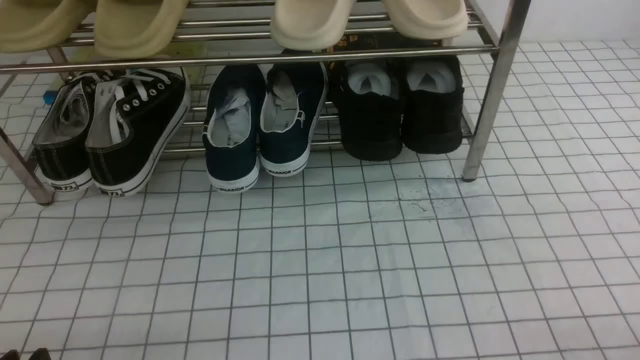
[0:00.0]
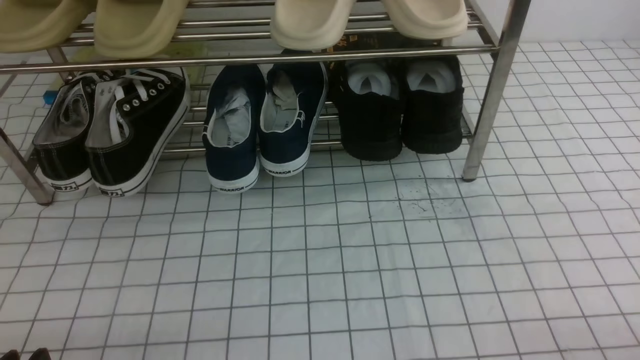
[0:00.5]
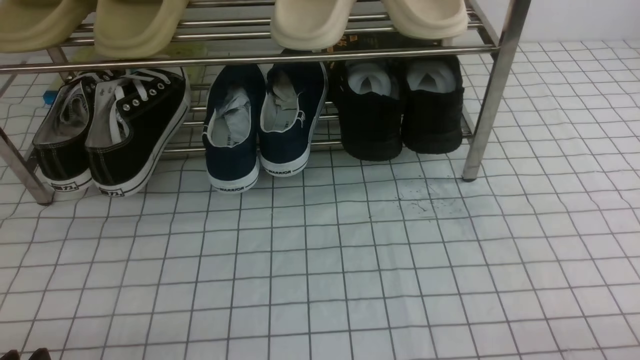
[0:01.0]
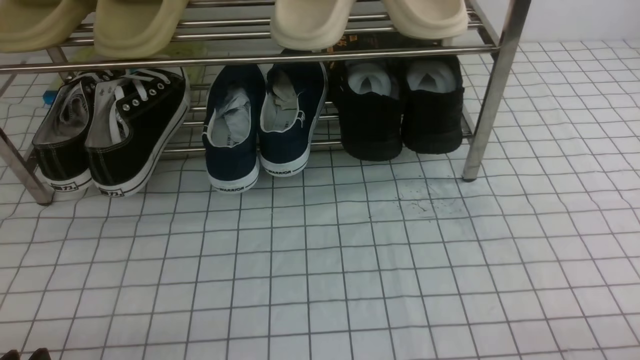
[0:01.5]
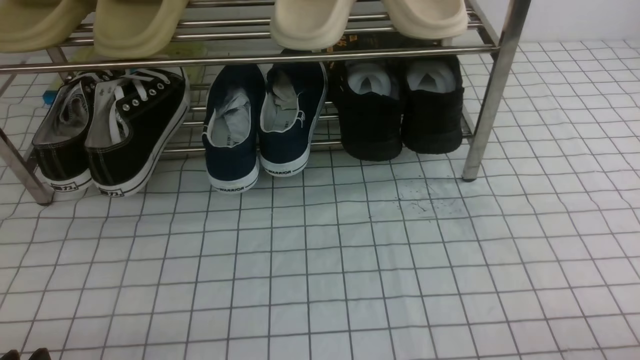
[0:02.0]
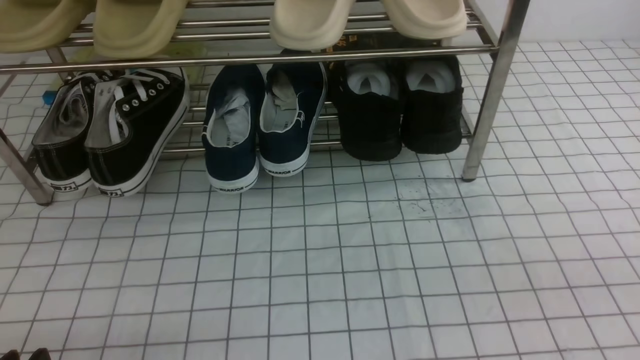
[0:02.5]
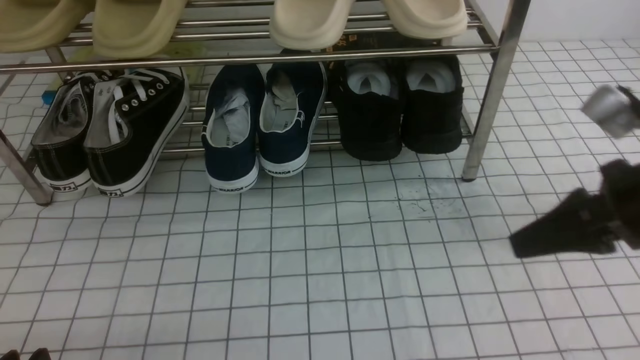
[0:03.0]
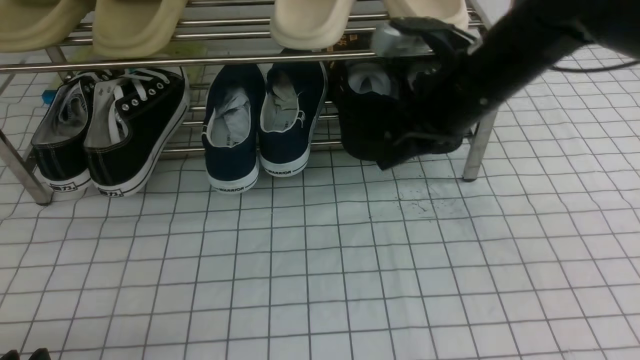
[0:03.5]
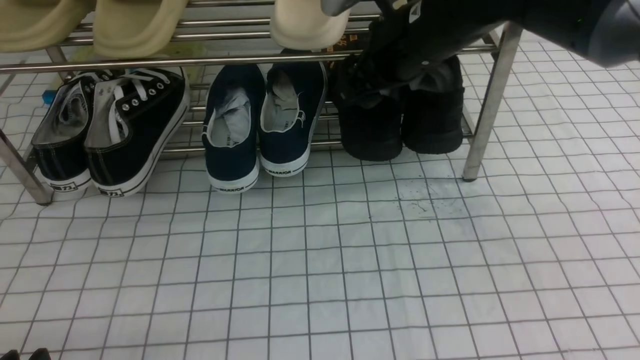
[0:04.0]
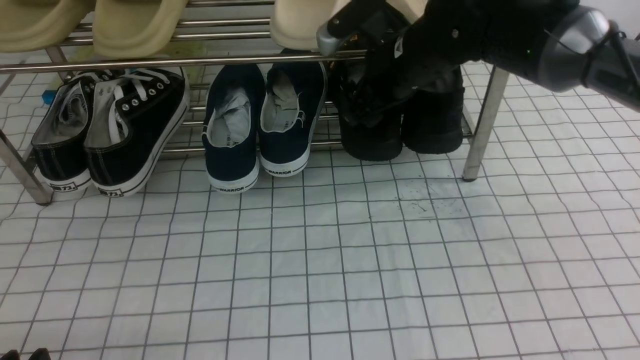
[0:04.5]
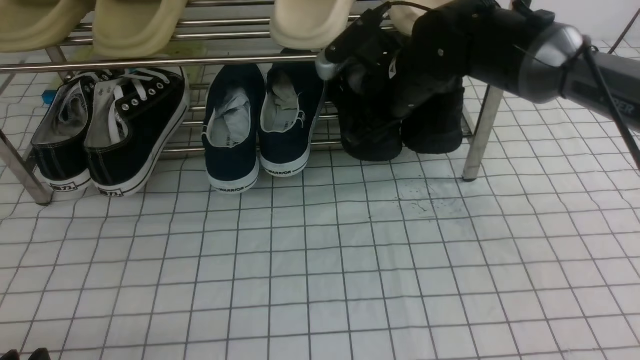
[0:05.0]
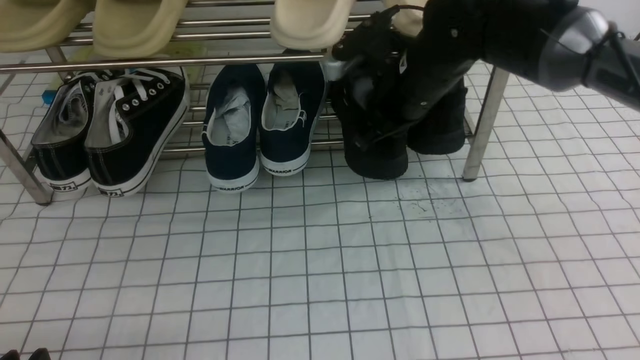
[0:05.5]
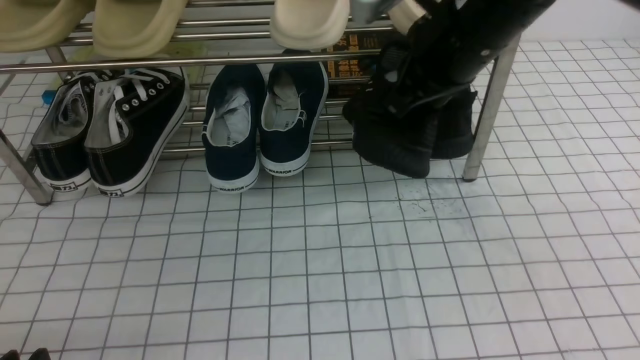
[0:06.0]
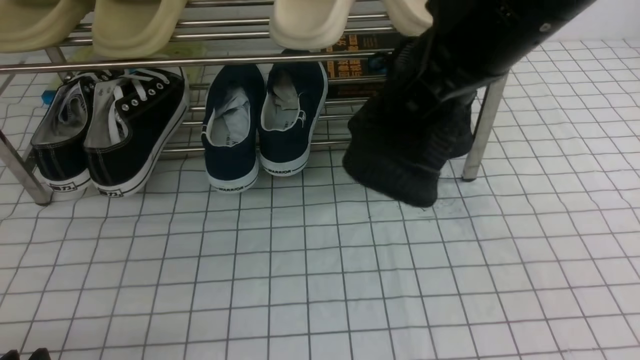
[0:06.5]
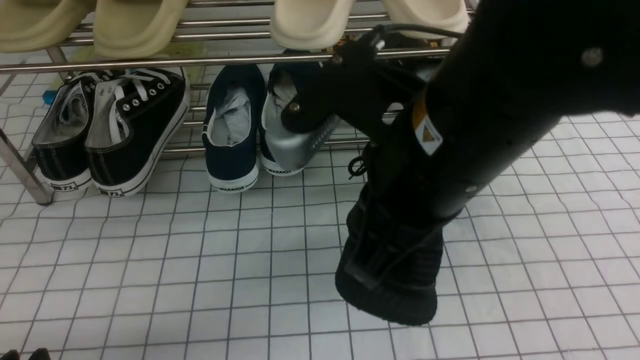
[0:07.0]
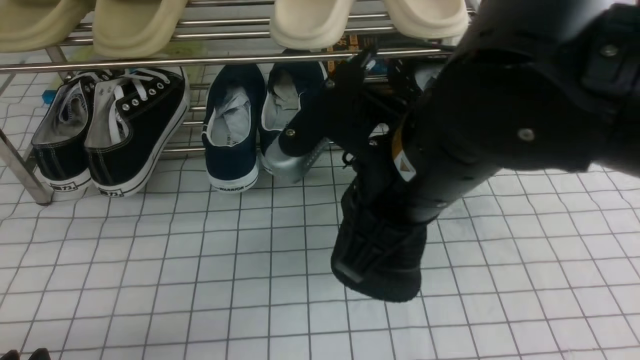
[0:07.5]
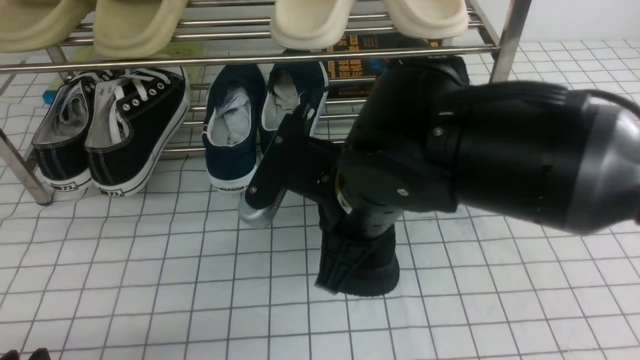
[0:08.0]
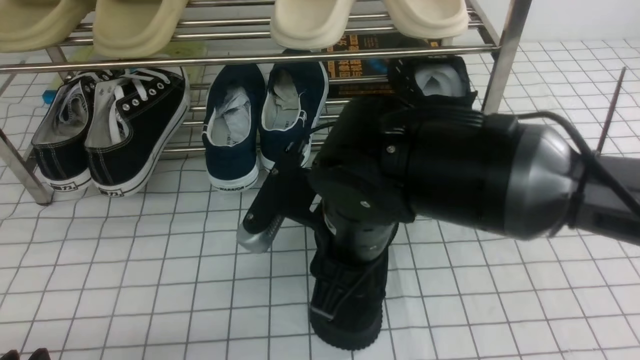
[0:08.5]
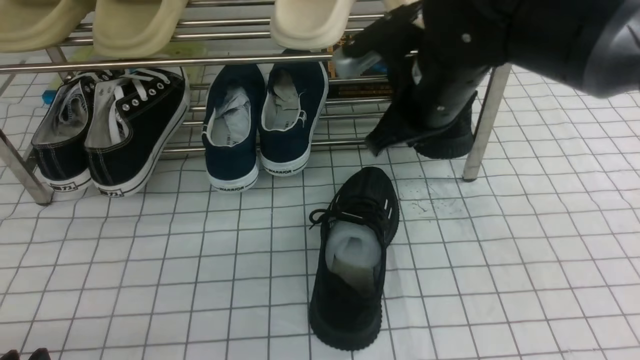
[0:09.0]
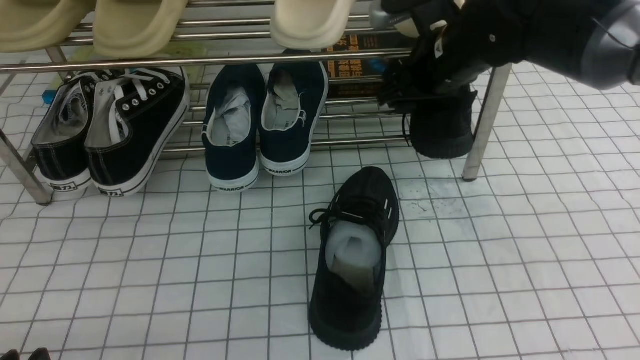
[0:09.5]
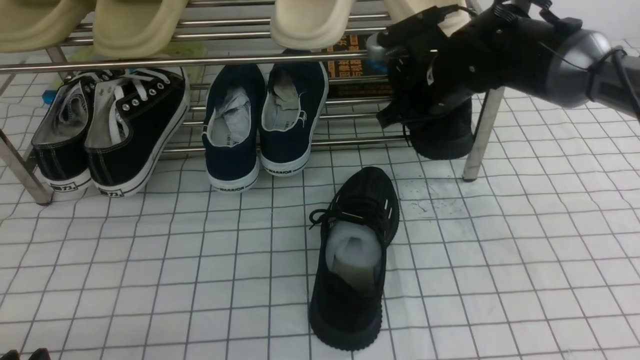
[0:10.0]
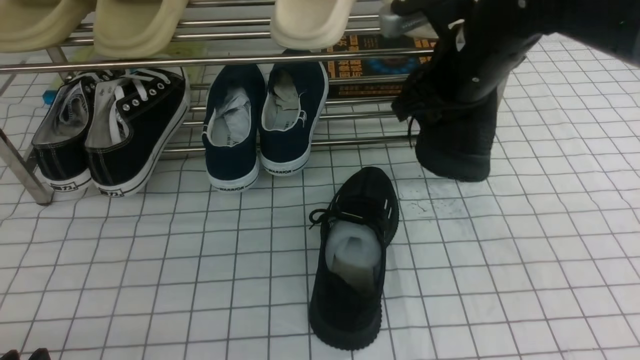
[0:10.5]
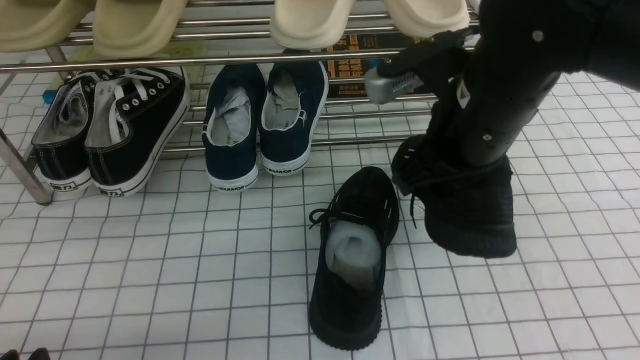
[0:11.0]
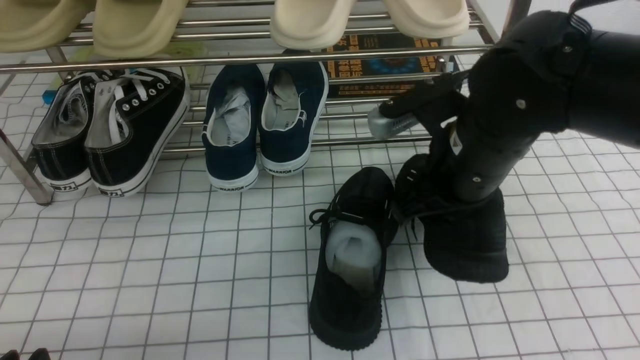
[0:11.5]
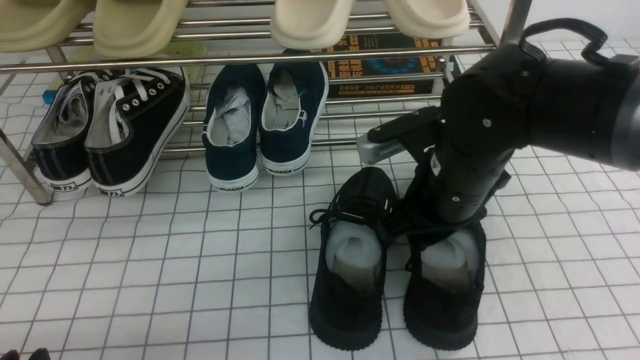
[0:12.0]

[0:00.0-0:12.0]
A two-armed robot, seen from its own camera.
Step, 0:00.0 to 0:05.0: use the right arm to clamp a shoe on the right side of the shoe rack.
Step, 0:05.5 to 0:08.5: use the right arm to take out the clamped shoe from the shoe rack and put it down.
Step, 0:09.0 to 0:10.0: use the right arm to clamp a shoe on the right side of the shoe rack.
0:02.0 to 0:04.0: The right gripper is displaced forward, to the left and upward by roughly 40 cm, and opens.
0:04.0 to 0:06.0: The right gripper goes roughly 5 cm backward, and closes up.
0:06.0 to 0:08.0: The right gripper travels to the left, backward and downward by about 15 cm.
0:08.0 to 0:10.0: The right gripper goes some 25 cm forward and to the right, and opens.
0:10.0 to 0:12.0: The right gripper shifts approximately 15 cm backward, and closes, then opens again.

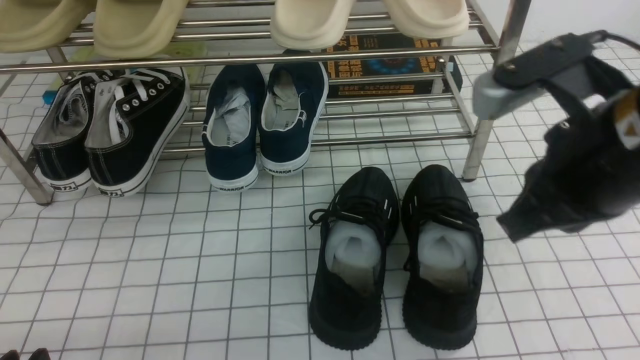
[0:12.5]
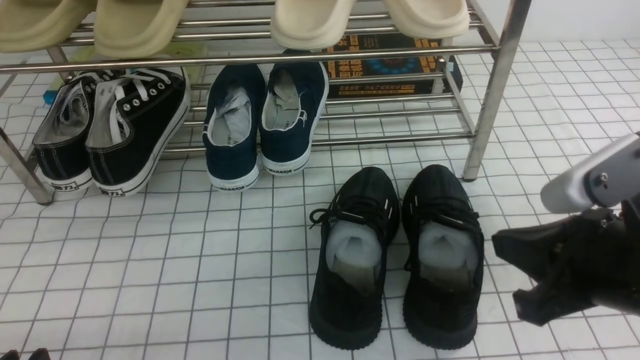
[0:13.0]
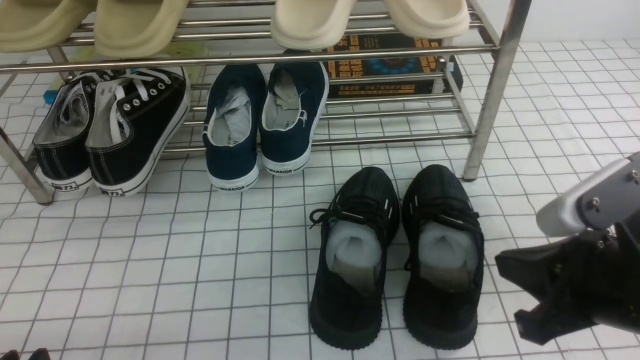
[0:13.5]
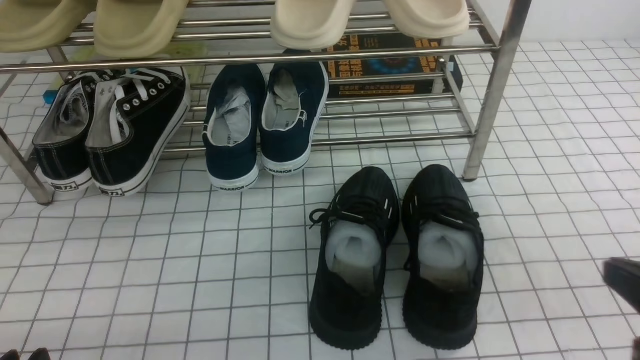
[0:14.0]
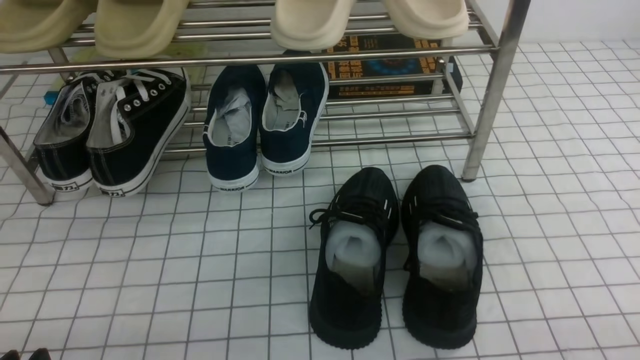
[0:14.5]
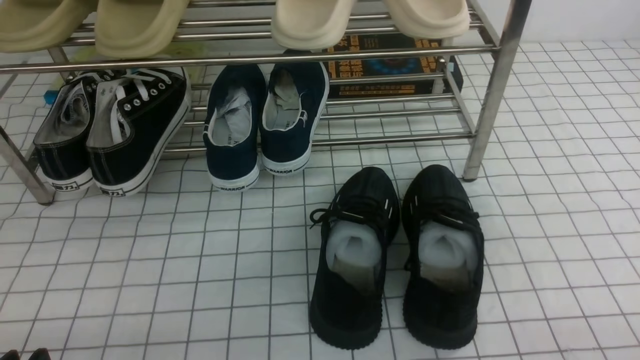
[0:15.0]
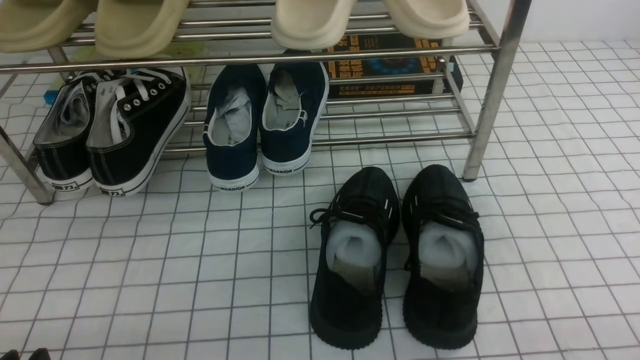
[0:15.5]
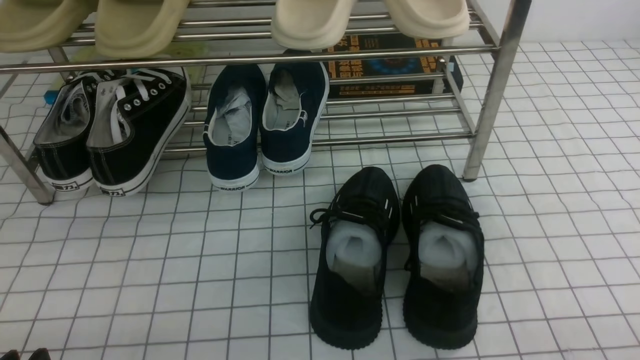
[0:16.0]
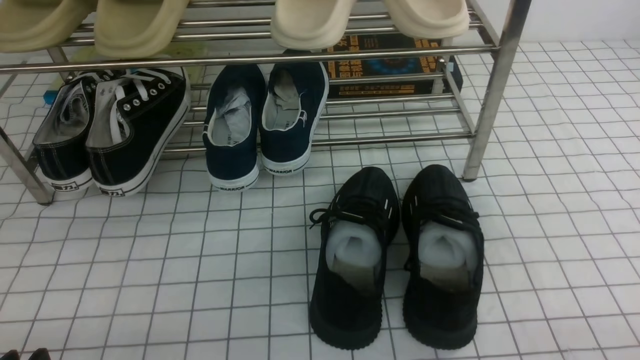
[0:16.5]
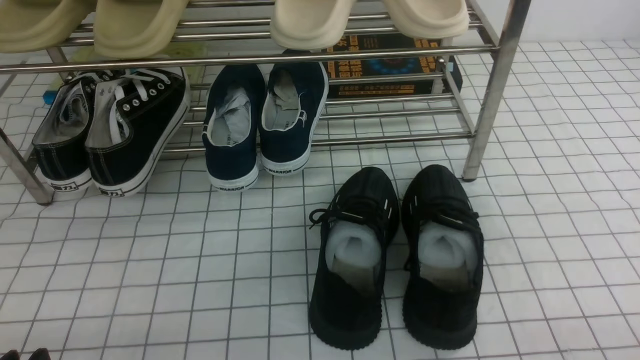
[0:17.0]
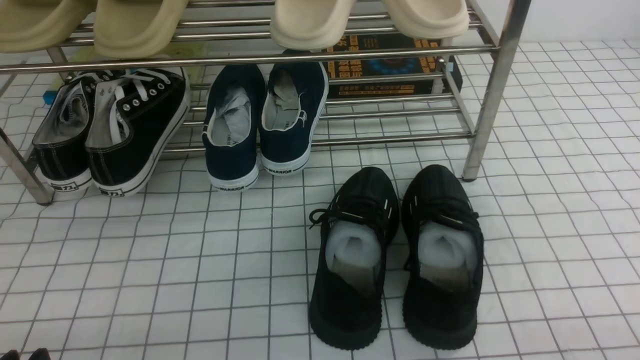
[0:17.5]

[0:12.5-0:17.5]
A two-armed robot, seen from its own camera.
0:12.5 to 0:15.0: The right gripper is displaced downward, to the right and backward by approximately 25 cm.
0:15.0 to 0:17.5: Neither gripper changes place.
